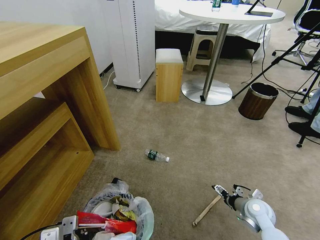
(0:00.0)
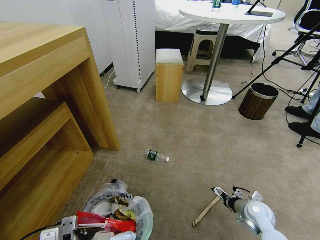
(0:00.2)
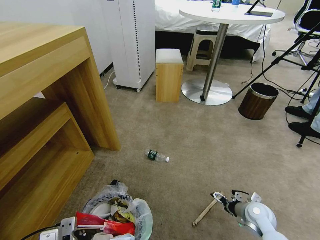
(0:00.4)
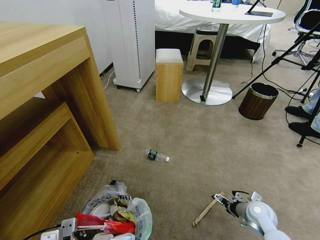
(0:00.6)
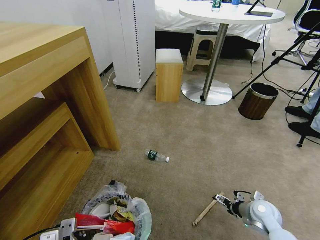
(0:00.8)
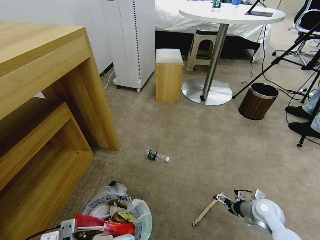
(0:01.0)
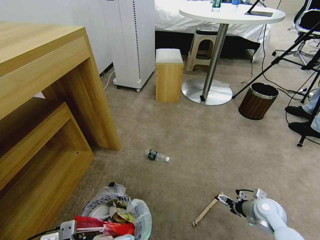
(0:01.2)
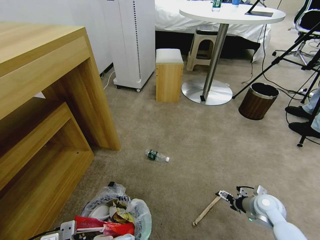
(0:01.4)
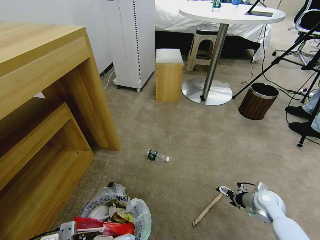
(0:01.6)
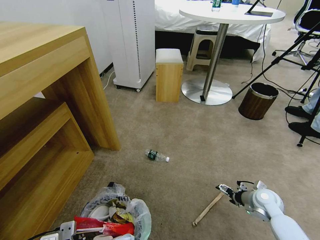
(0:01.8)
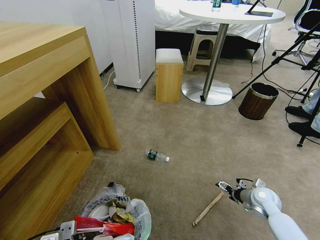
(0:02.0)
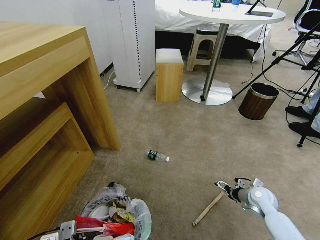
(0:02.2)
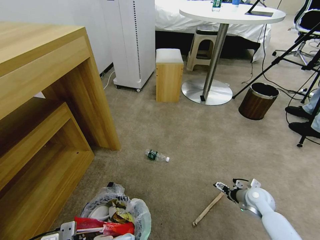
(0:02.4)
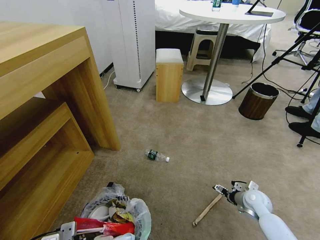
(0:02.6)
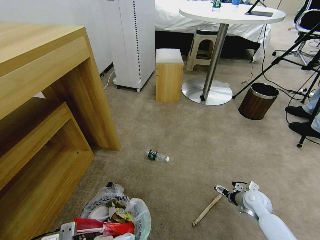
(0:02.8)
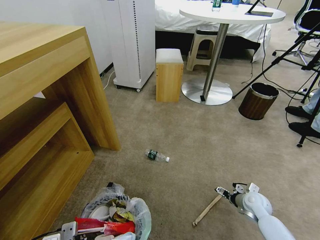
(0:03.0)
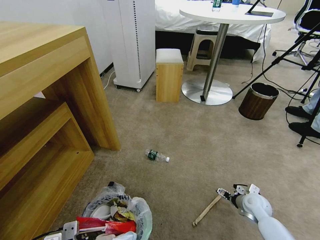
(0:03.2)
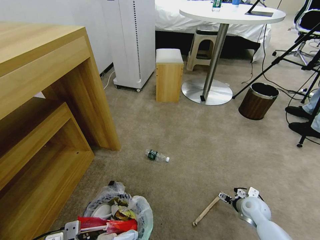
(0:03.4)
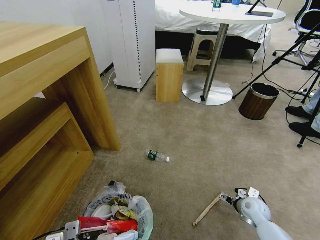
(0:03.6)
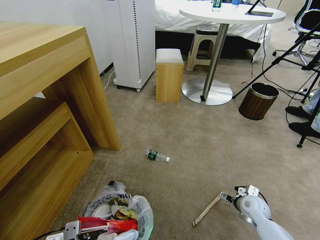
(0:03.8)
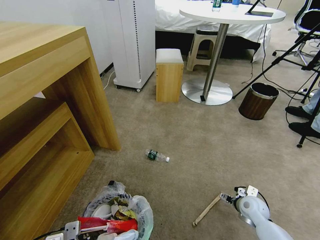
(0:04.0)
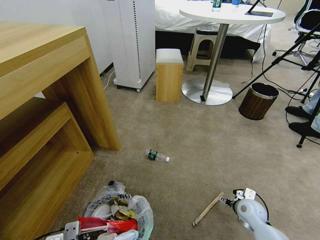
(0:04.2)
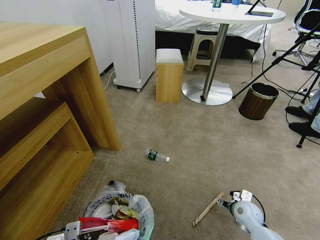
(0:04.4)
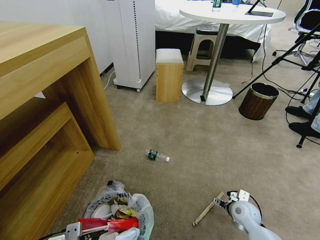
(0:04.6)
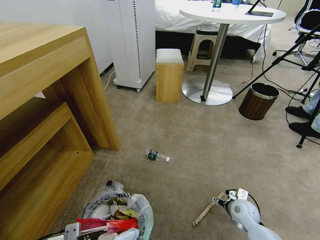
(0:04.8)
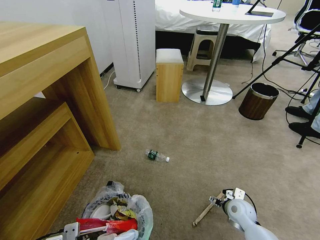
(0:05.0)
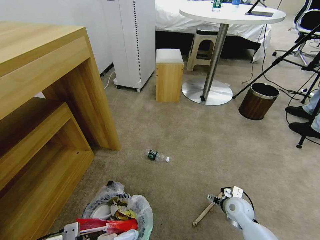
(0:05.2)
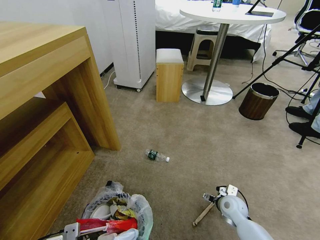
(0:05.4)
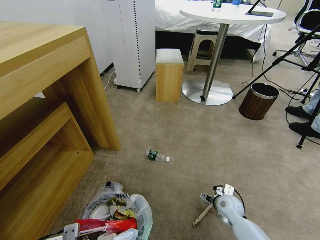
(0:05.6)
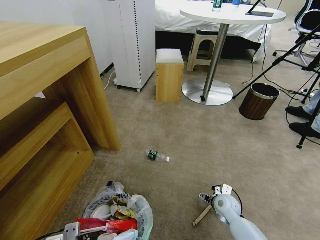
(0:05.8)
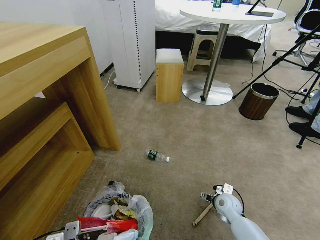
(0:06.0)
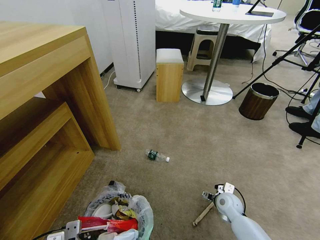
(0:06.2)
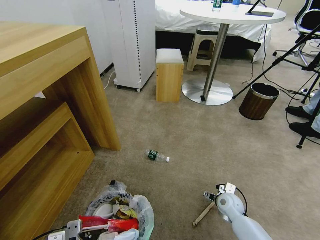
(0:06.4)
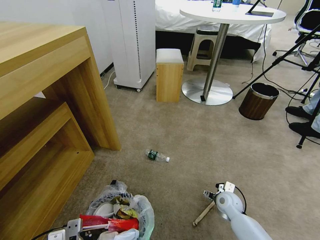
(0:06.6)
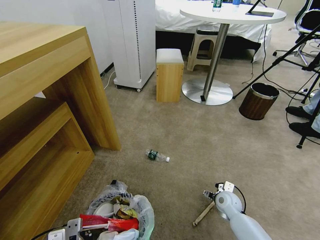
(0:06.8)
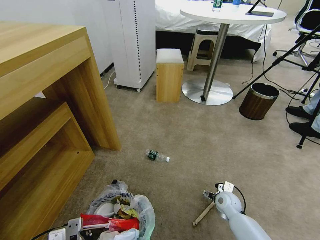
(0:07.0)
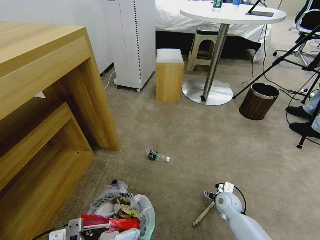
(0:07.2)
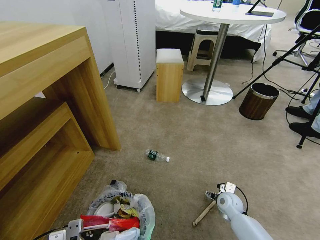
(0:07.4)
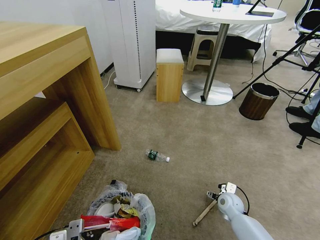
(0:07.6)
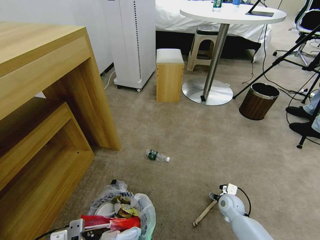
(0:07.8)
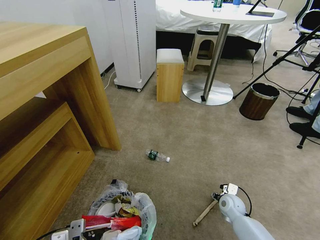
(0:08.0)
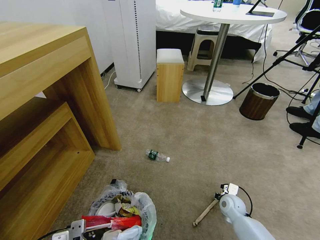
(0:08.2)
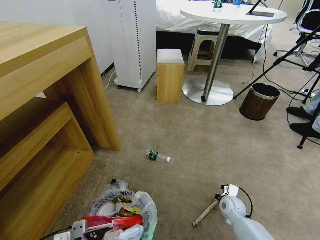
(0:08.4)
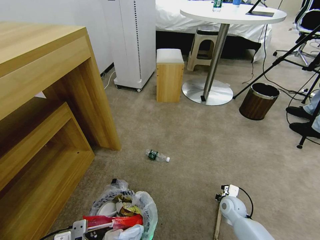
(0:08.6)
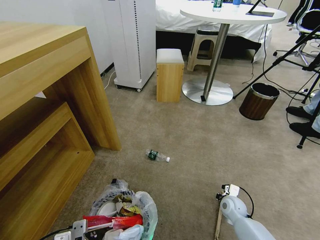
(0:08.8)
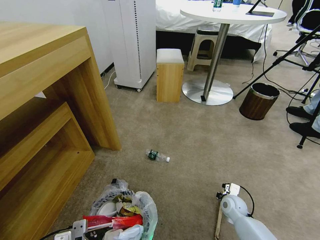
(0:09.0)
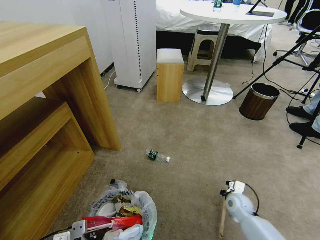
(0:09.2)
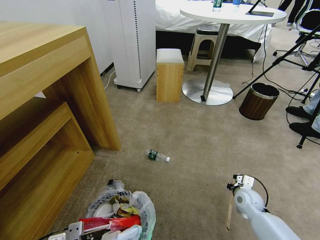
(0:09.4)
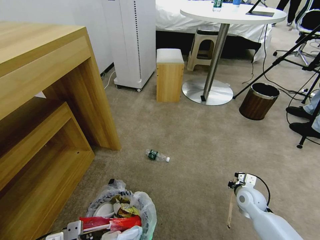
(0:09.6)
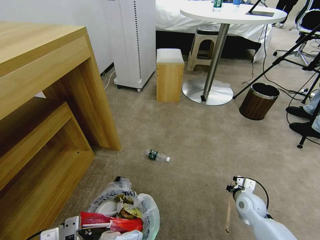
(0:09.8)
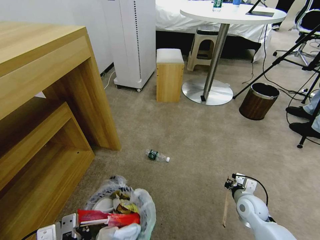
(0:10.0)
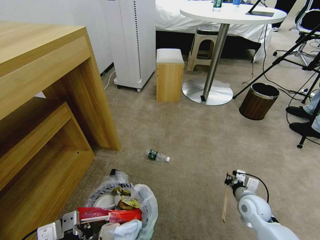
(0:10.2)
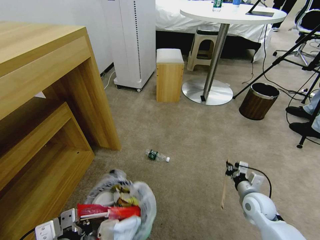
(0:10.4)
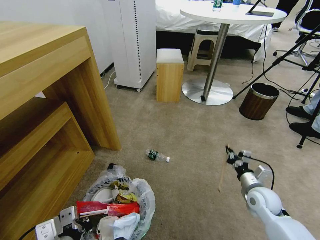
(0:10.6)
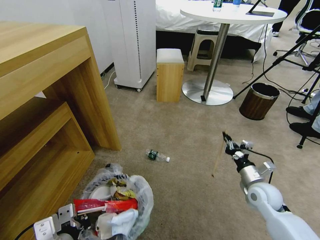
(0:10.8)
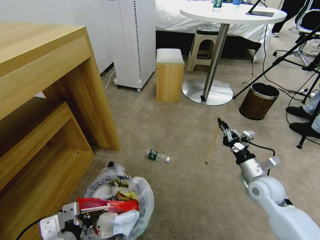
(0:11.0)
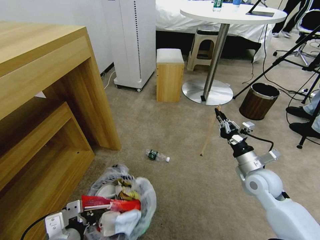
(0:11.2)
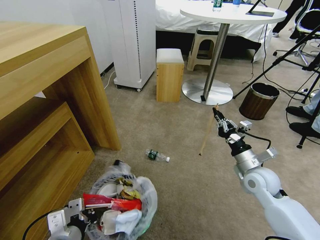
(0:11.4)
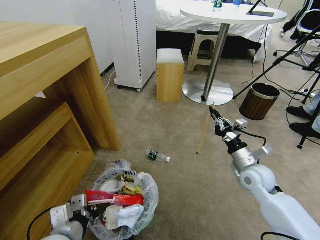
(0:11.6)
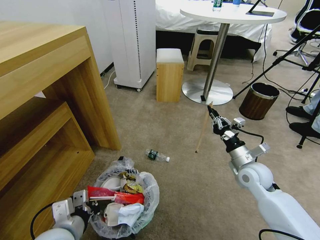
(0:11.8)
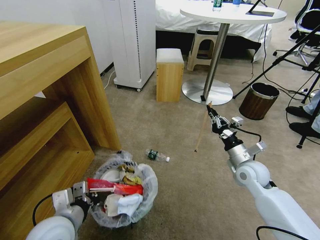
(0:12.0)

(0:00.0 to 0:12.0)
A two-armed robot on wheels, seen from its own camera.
Task of the whole recording: Pick up the trash bin and place the garbage on the floor into it.
0:00.0 - 0:01.6: The right gripper shifts by some 5 cm.
0:01.6 - 0:03.0: The grippers move only a little.
0:03.0 - 0:04.4: The right gripper shifts by roughly 5 cm.
0:04.4 - 0:06.0: The right gripper heads to the left, covering some 5 cm.
0:06.0 - 0:07.6: The grippers make only small movements.
0:07.6 - 0:09.0: The right gripper closes.
0:09.0 - 0:10.4: The right gripper moves upward, roughly 10 cm; the left gripper goes some 5 cm upward.
0:10.4 - 0:12.0: The right gripper goes roughly 15 cm upward and forward. Meanwhile the left gripper shifts about 5 cm forward.

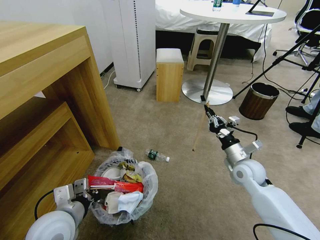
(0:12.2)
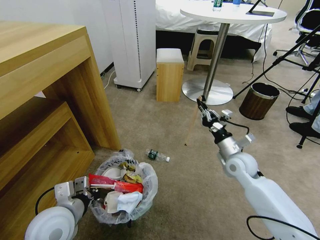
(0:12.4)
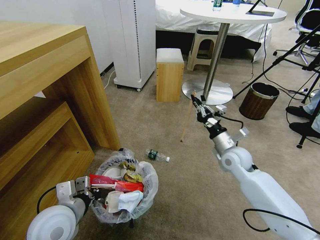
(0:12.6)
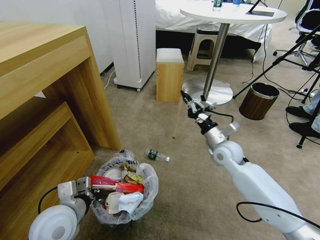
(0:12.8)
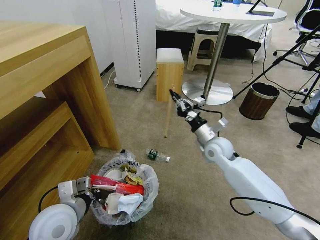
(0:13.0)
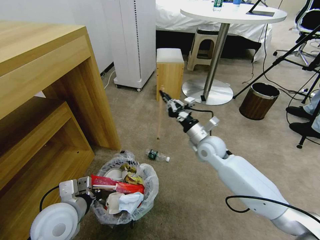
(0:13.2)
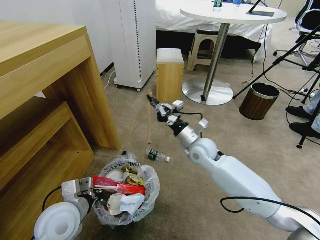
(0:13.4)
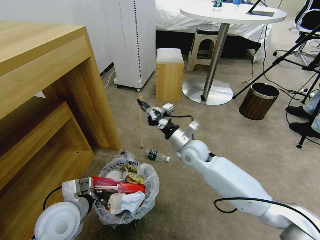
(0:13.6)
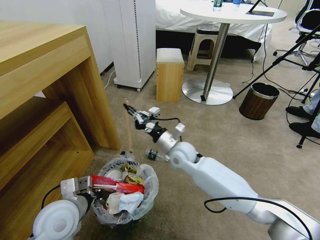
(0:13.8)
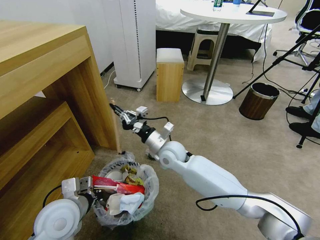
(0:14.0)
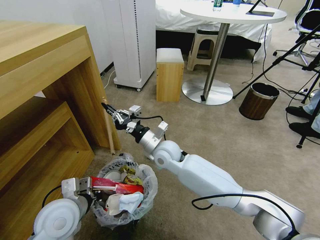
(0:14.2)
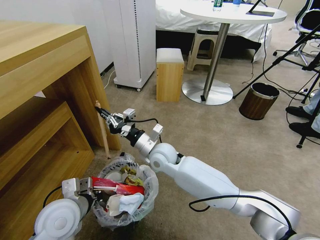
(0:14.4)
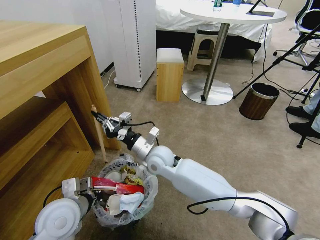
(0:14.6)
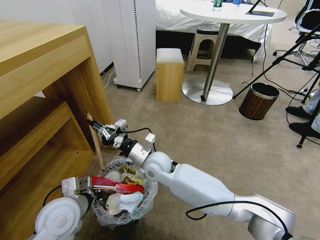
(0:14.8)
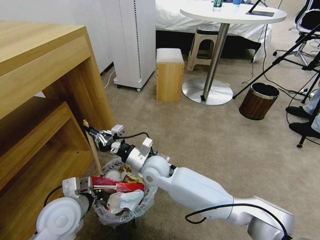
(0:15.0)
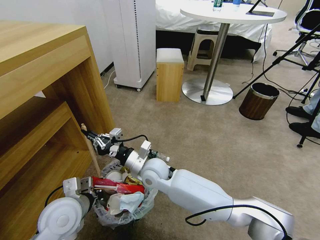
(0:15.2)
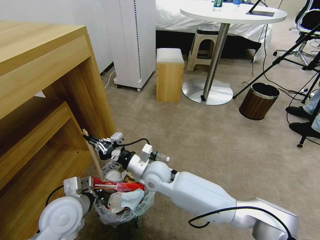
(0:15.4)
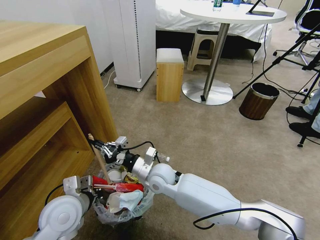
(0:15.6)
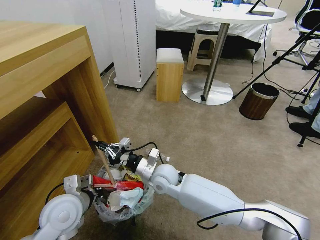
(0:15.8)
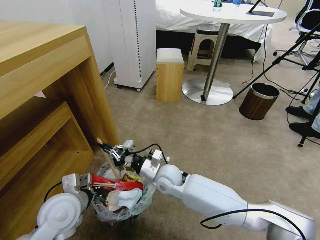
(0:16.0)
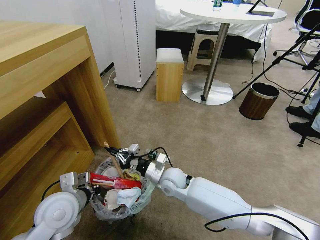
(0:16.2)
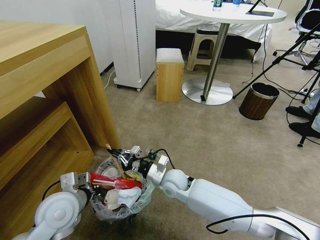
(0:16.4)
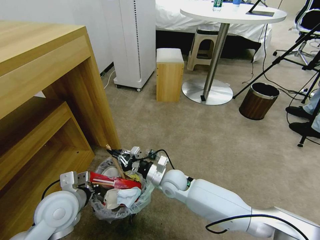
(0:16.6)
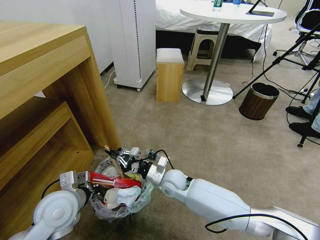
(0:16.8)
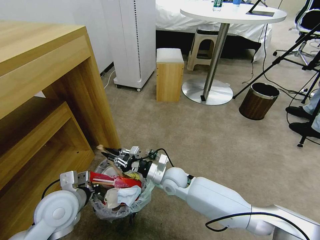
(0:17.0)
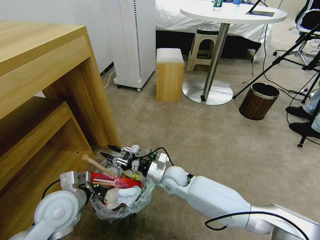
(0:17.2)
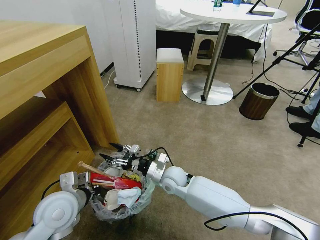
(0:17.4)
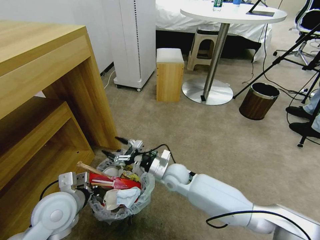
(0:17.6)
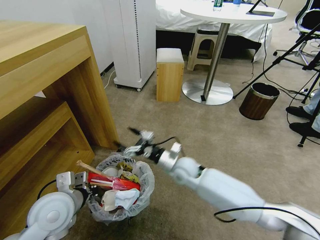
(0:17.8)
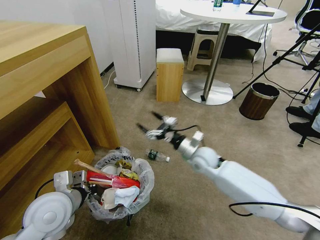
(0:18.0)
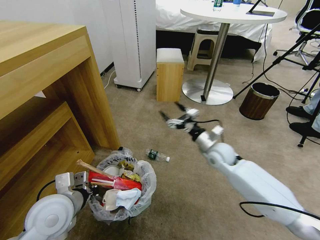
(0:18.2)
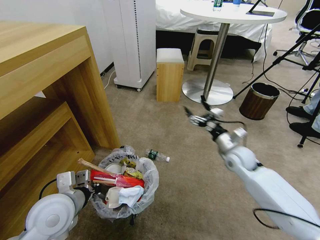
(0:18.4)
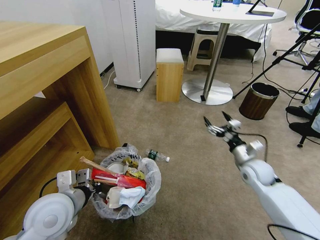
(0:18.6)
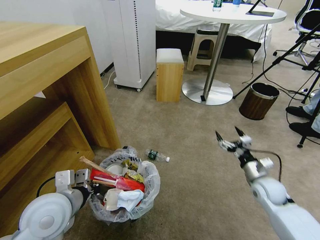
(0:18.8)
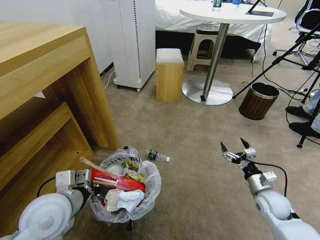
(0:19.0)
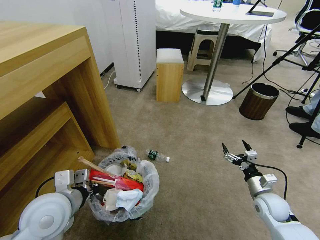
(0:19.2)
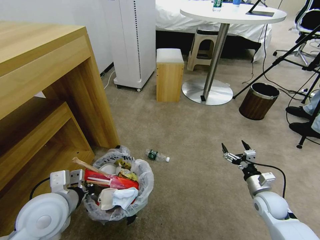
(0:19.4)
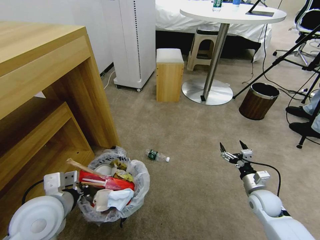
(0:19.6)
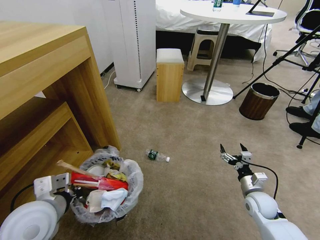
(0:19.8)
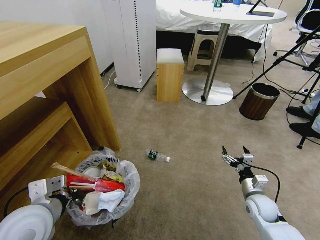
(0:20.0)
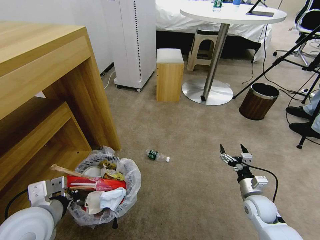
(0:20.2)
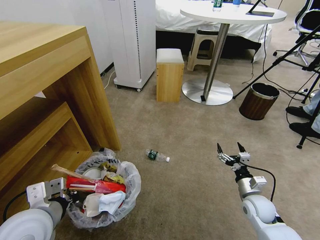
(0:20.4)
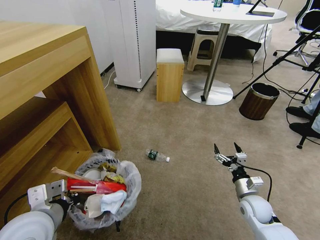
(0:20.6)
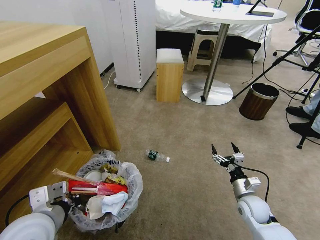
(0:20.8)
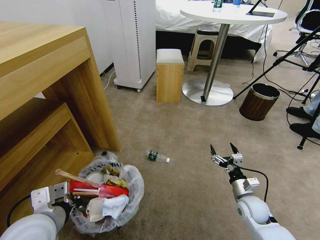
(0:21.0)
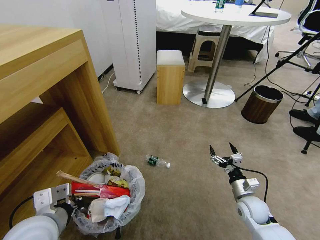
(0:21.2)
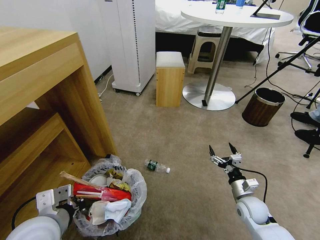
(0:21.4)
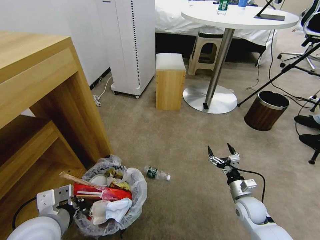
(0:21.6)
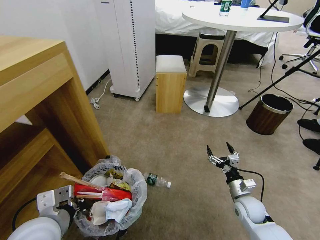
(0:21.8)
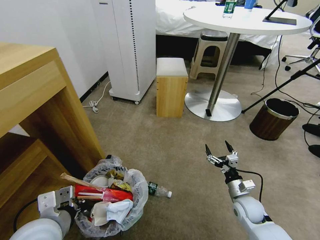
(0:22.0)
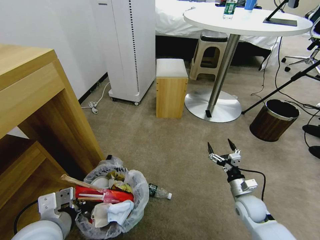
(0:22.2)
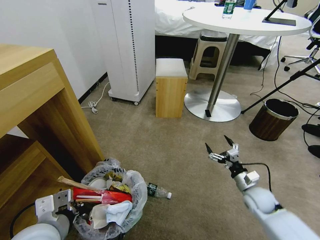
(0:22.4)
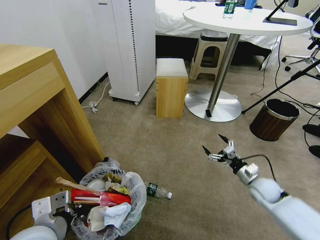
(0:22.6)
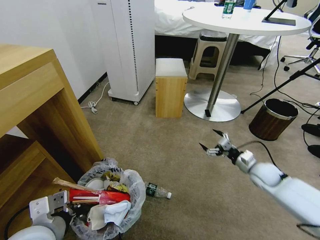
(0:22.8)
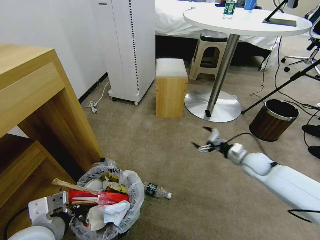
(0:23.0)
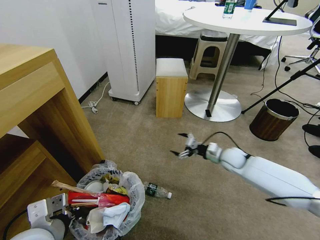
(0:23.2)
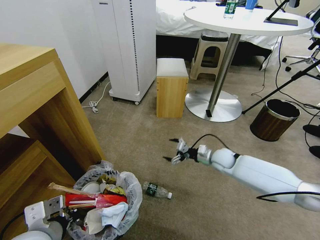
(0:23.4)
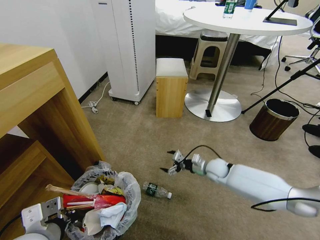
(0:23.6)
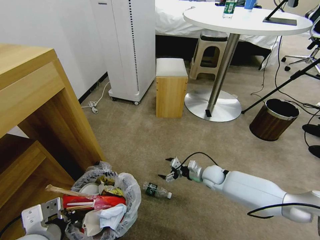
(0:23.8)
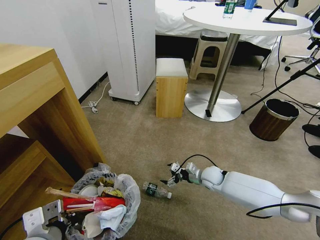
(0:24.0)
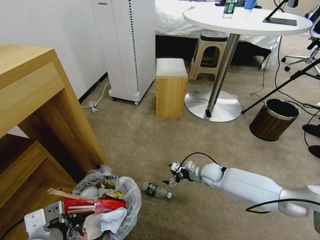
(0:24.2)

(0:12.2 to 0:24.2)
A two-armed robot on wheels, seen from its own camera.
Task of the whole recording: Pick up the trash bin and place the garbage on the floor into it.
0:12.2 - 0:13.8: The right gripper moves to the left, about 20 cm.
0:13.8 - 0:15.2: The right gripper moves to the left and backward, approximately 10 cm.
0:15.2 - 0:16.6: The right gripper goes roughly 10 cm to the right and downward.
0:16.6 - 0:18.2: The right gripper moves to the right and upward, approximately 20 cm, and opens its fingers.
0:18.2 - 0:19.8: The right gripper travels backward, to the right and downward by approximately 25 cm.
0:21.2 - 0:22.6: The right gripper travels to the right and forward by some 10 cm.
0:22.6 - 0:24.2: The right gripper is displaced to the left and forward by approximately 20 cm.
